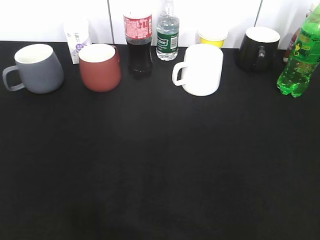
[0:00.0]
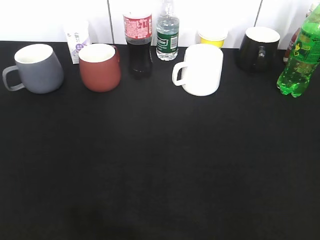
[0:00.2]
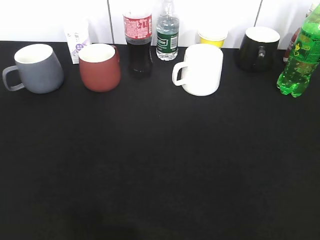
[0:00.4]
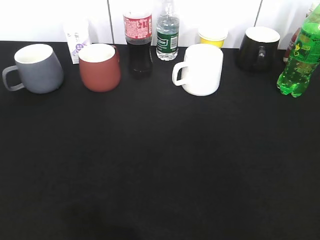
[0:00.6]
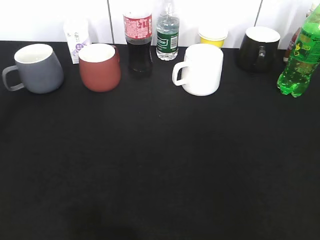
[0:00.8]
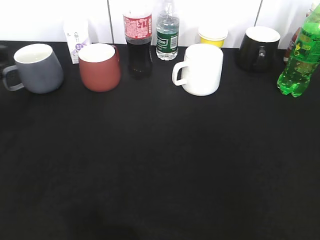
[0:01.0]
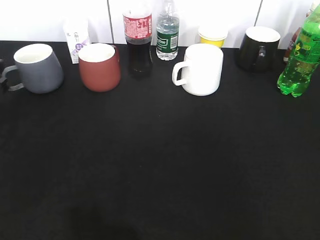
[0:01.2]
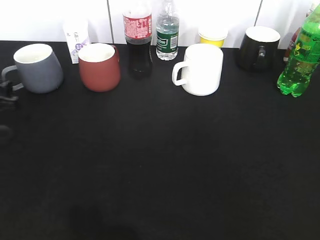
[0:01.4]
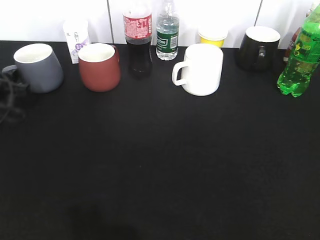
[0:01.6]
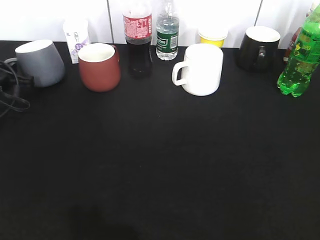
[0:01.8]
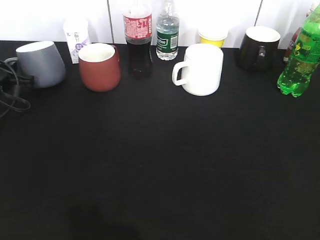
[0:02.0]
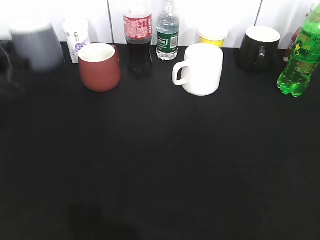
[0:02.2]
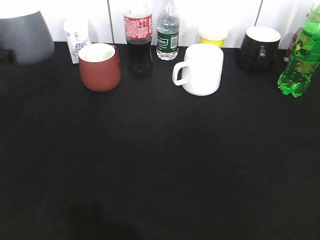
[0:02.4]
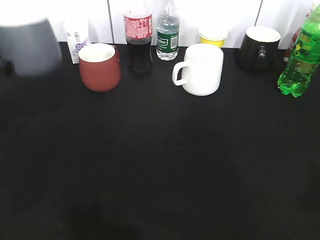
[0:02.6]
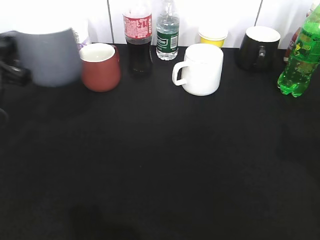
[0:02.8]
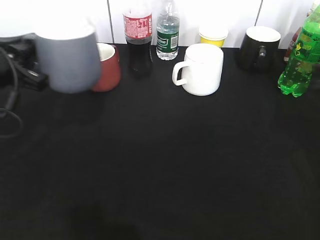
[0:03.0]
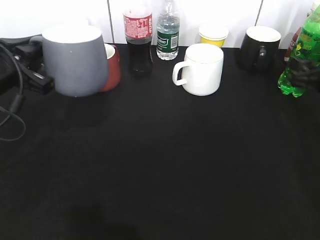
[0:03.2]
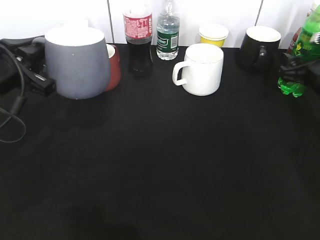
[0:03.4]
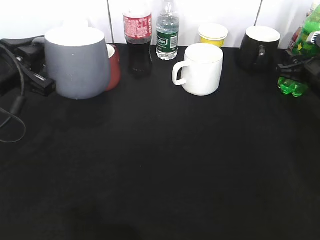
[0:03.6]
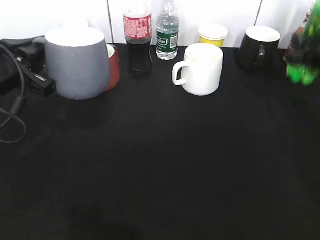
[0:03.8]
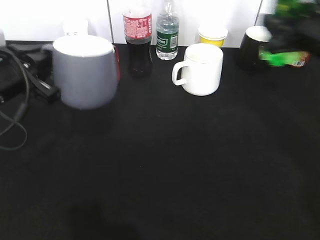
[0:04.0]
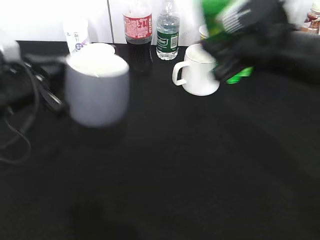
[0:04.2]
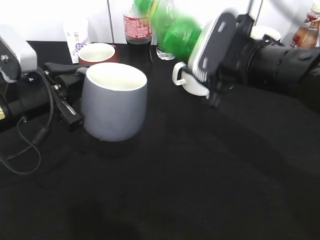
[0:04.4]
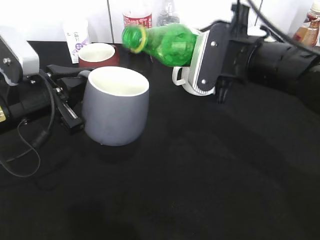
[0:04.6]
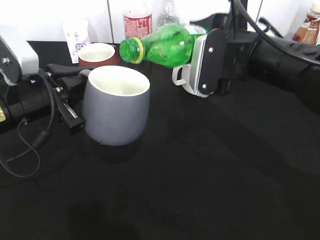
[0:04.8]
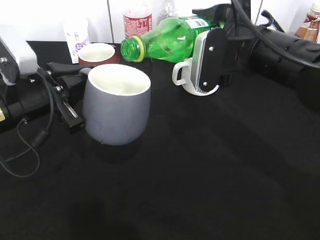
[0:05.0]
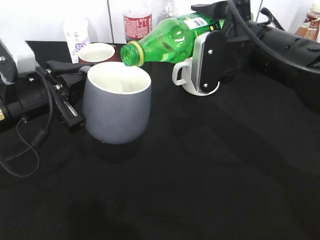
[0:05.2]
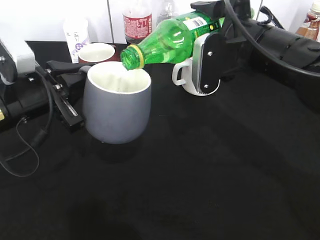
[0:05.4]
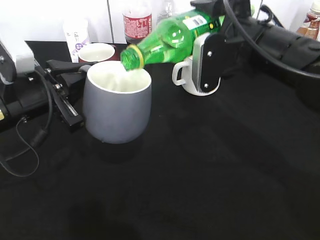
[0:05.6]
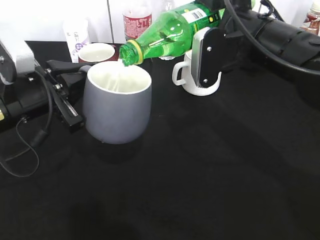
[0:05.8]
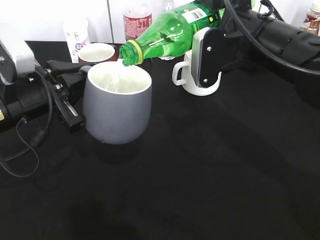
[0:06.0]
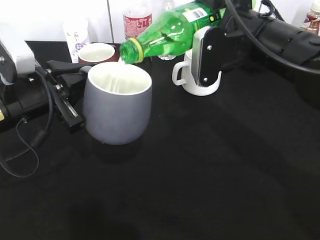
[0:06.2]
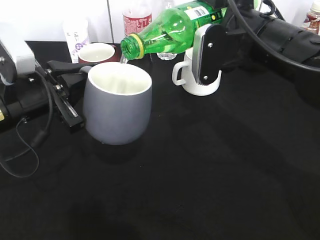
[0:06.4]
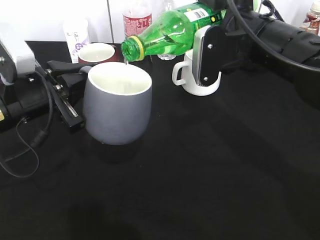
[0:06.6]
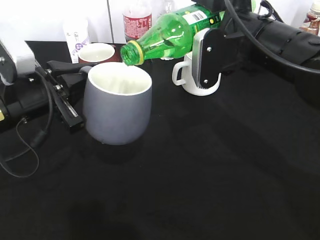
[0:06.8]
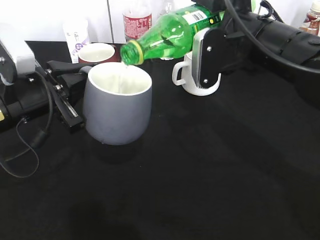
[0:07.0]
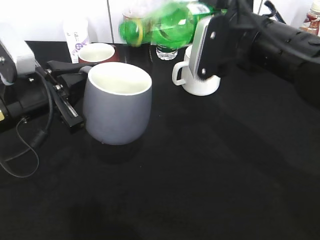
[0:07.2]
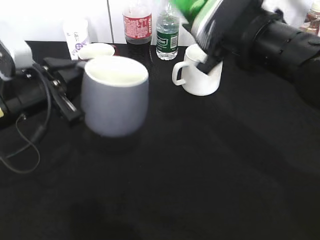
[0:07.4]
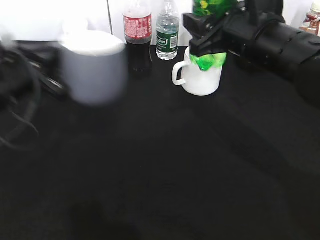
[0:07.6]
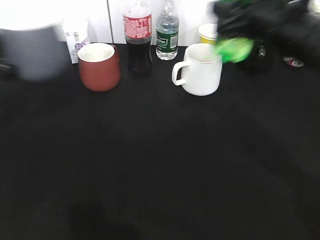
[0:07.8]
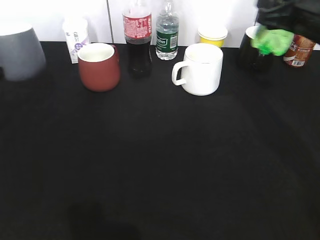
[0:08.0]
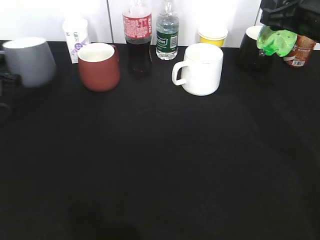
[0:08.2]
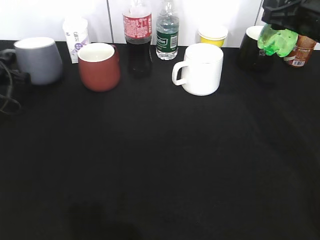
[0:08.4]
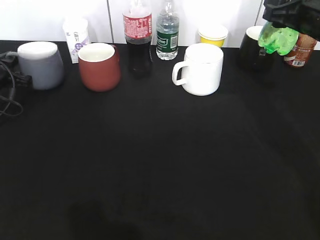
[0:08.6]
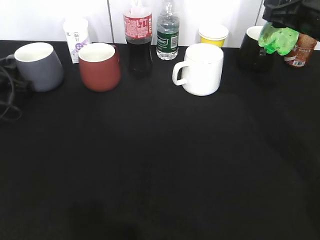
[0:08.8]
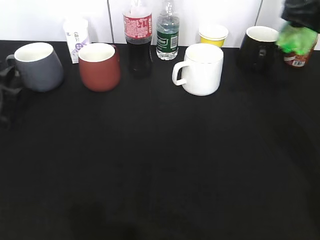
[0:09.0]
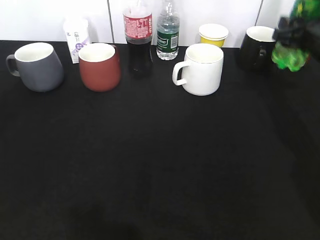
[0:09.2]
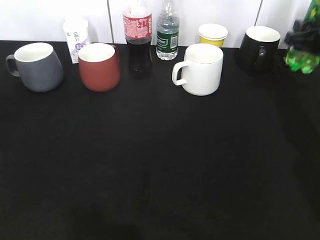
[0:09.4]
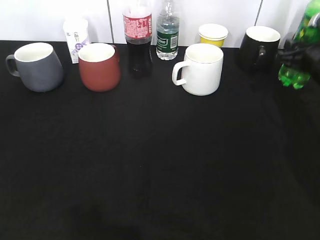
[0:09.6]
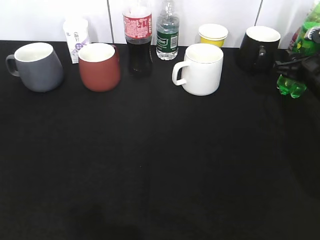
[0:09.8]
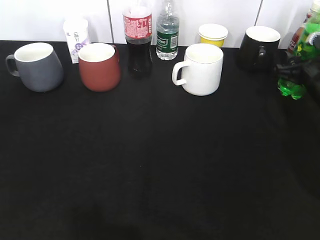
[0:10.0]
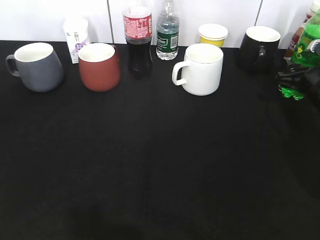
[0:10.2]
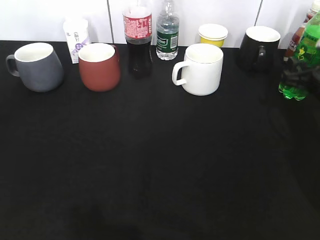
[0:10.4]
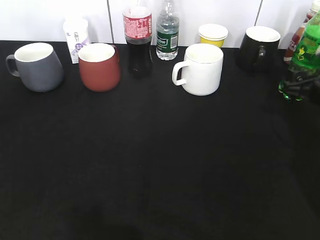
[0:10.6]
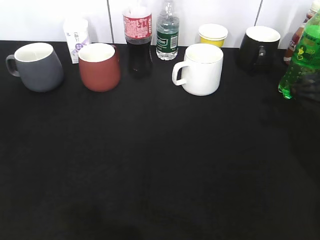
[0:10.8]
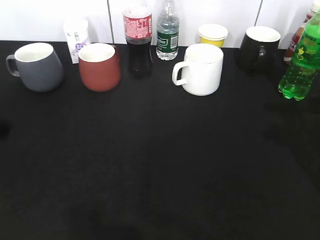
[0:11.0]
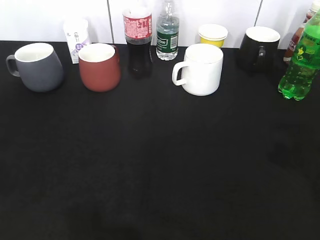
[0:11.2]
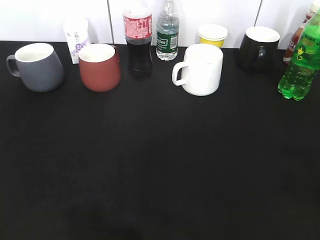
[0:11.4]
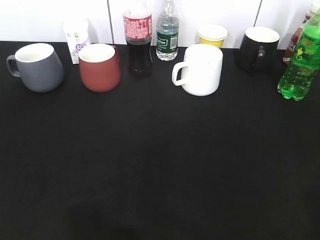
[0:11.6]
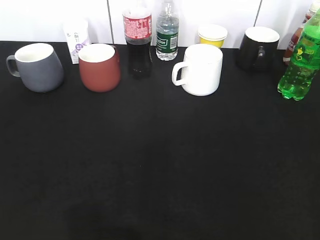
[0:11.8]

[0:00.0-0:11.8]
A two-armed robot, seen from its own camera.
Step, 0:01.8 to 0:02.8: Lift the grey cup with left gripper.
Step, 0:03.0 to 0:03.6: Grasp the bottle with sprite with right gripper.
Step, 0:03.8 to 0:07.2: Pour the sprite from bottle to cup with right gripper.
Step, 0:07.4 to 0:10.8: Place the sprite bottle on the table with right gripper.
0:00.0 to 0:01.4: The left gripper travels forward and downward by about 35 cm.
0:01.4 to 0:03.0: The left gripper shifts about 10 cm upward and to the right, moves some 5 cm forward and comes back, and closes.
0:03.0 to 0:04.4: The left gripper moves to the right, about 5 cm. Meanwhile the right gripper heads to the left, covering roughly 20 cm, and closes up.
0:07.4 to 0:08.8: The right gripper travels to the right by some 10 cm. The left gripper travels to the left, forward and downward by about 25 cm, and opens its fingers.
0:08.8 to 0:10.4: The right gripper travels downward and to the right by about 15 cm, and opens. The left gripper moves backward and upward, about 20 cm.
0:10.4 to 0:11.8: The right gripper travels backward and upward by some 40 cm. The left gripper travels backward by some 25 cm.

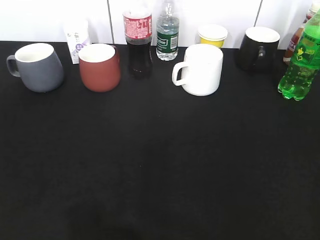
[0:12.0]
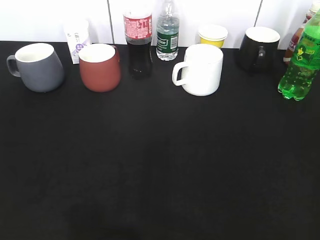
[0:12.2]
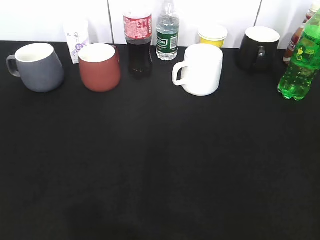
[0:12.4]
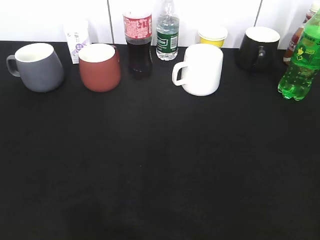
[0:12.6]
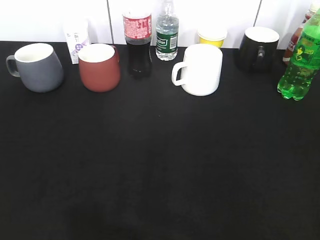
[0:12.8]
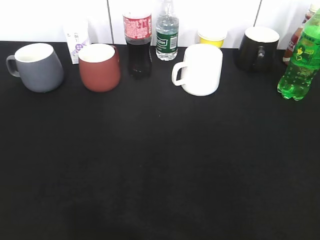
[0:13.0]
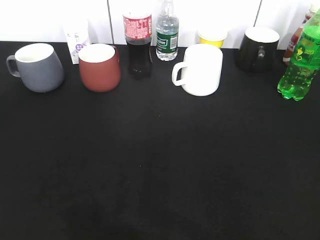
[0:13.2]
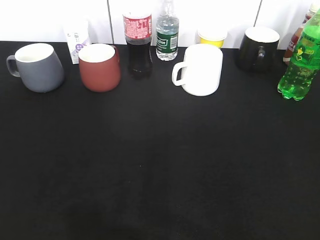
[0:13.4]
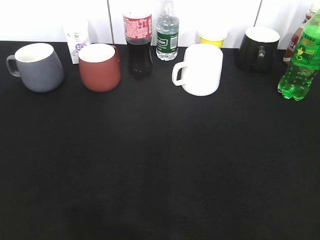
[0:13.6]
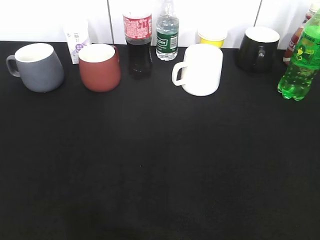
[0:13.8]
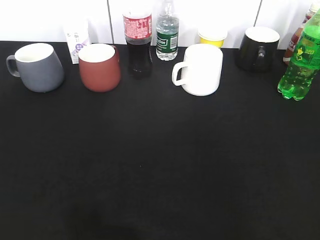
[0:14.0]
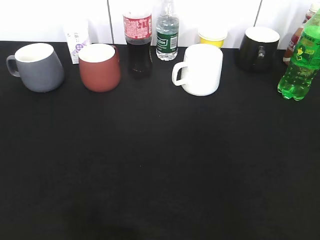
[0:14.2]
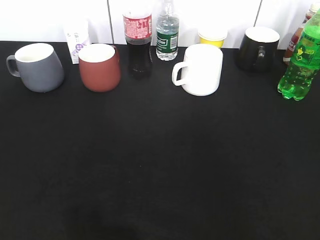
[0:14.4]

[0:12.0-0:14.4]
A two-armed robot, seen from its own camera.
0:12.0 to 0:13.2: The grippers stay close to where they were, moving slightly.
0:13.2 to 0:14.4: Neither gripper changes place.
